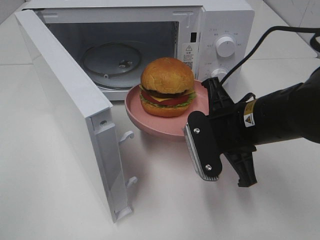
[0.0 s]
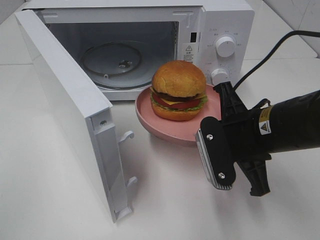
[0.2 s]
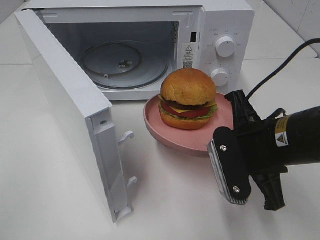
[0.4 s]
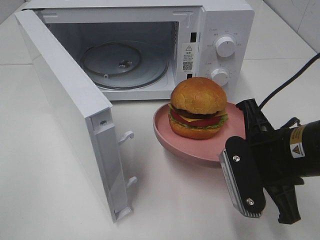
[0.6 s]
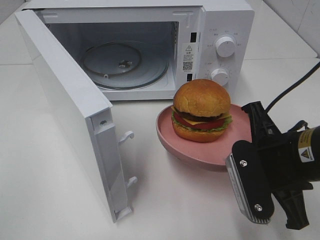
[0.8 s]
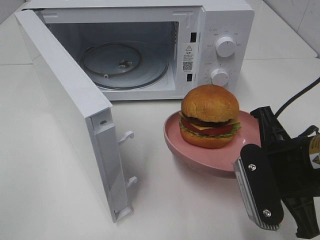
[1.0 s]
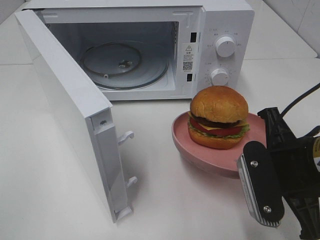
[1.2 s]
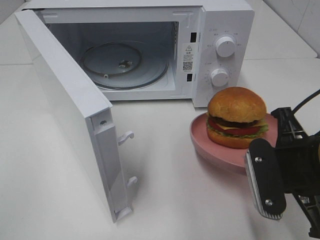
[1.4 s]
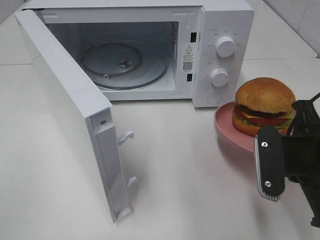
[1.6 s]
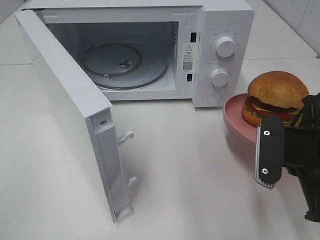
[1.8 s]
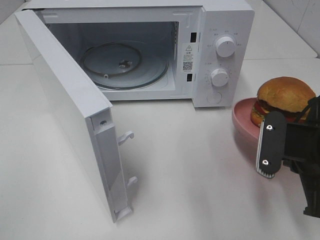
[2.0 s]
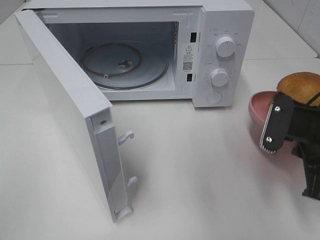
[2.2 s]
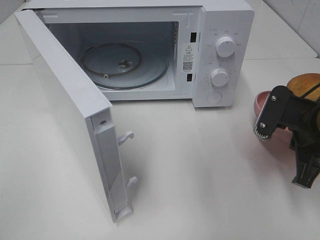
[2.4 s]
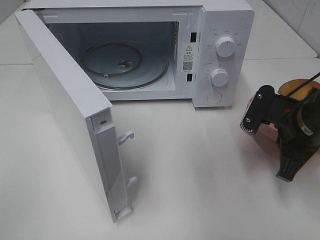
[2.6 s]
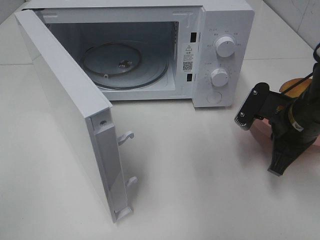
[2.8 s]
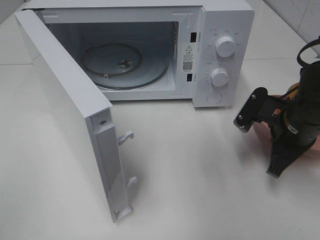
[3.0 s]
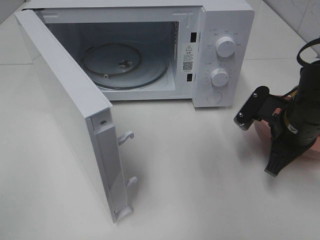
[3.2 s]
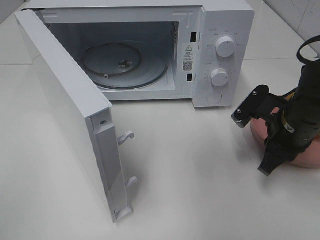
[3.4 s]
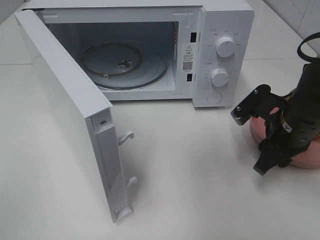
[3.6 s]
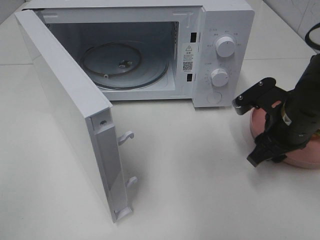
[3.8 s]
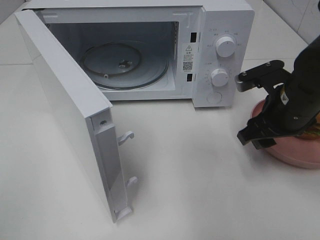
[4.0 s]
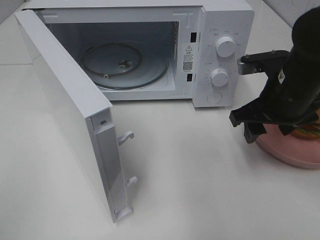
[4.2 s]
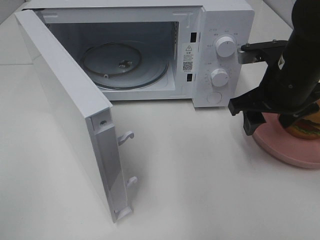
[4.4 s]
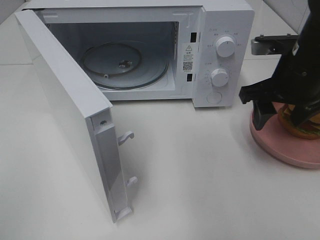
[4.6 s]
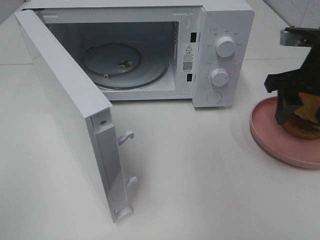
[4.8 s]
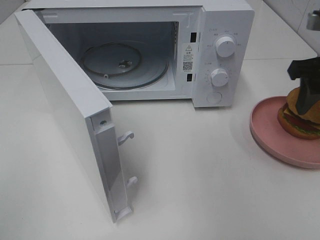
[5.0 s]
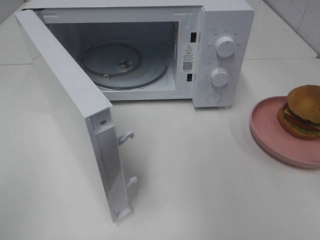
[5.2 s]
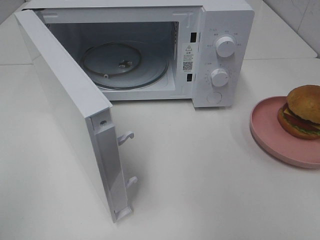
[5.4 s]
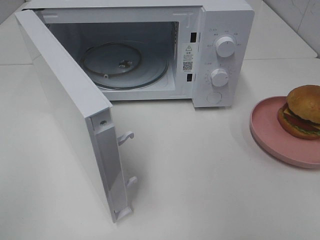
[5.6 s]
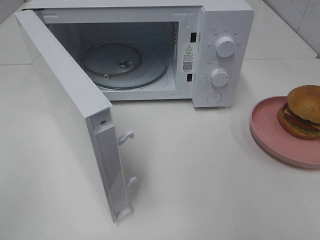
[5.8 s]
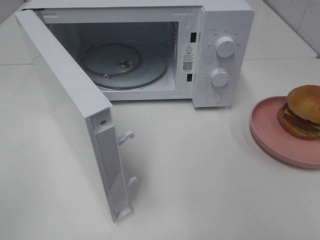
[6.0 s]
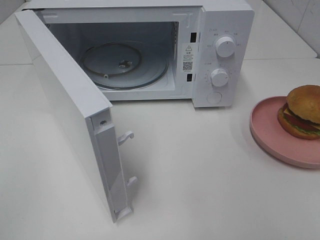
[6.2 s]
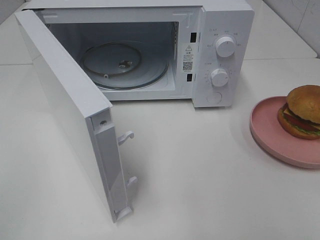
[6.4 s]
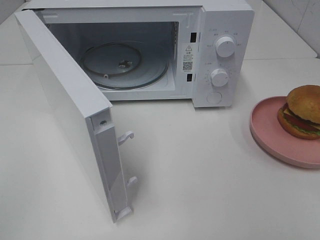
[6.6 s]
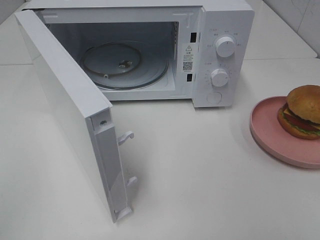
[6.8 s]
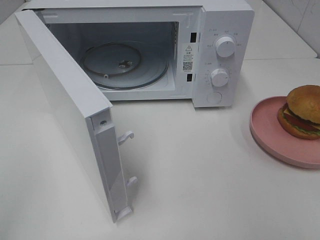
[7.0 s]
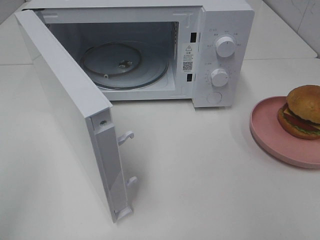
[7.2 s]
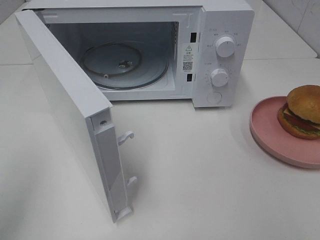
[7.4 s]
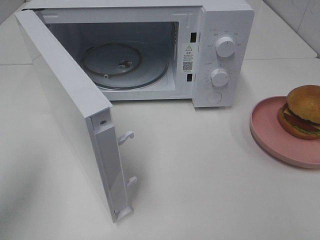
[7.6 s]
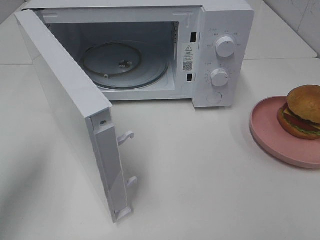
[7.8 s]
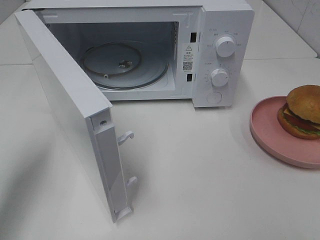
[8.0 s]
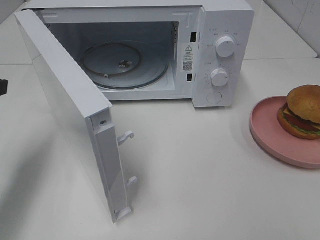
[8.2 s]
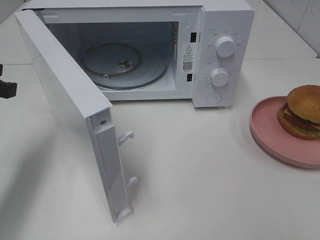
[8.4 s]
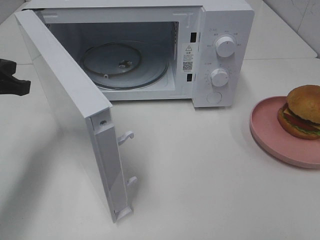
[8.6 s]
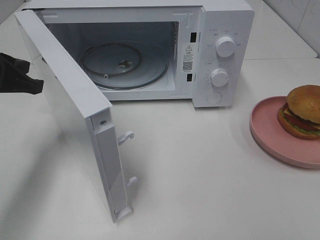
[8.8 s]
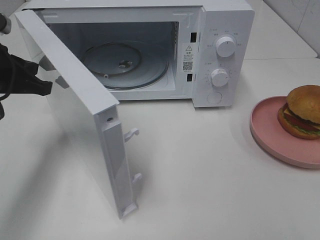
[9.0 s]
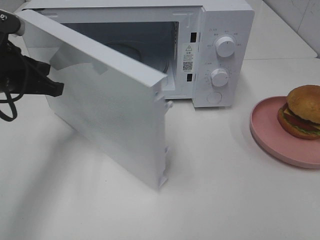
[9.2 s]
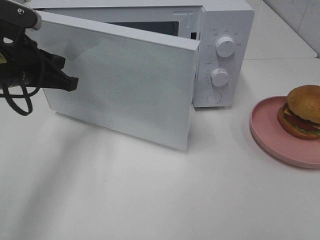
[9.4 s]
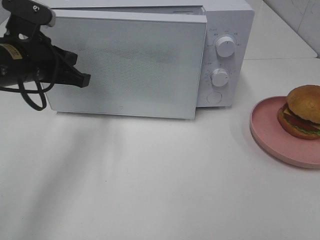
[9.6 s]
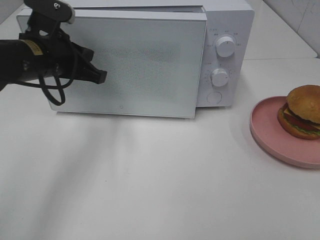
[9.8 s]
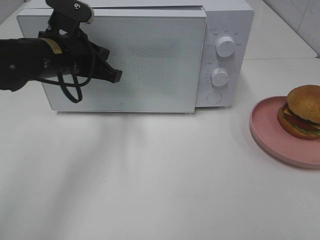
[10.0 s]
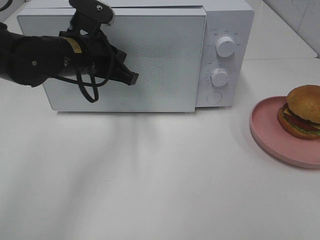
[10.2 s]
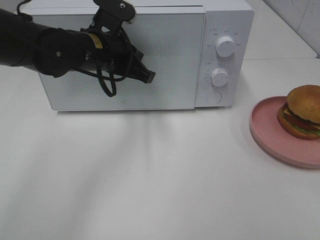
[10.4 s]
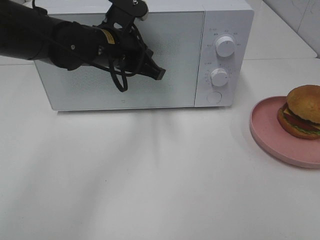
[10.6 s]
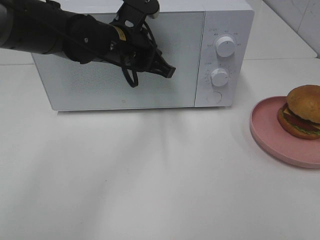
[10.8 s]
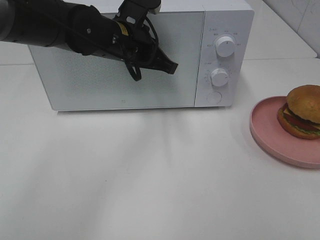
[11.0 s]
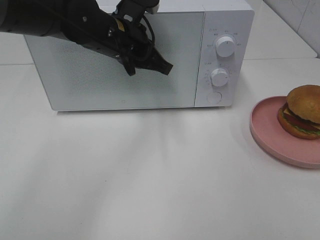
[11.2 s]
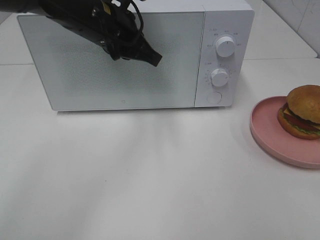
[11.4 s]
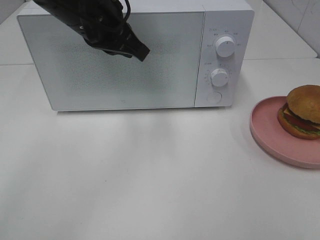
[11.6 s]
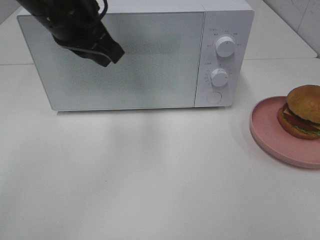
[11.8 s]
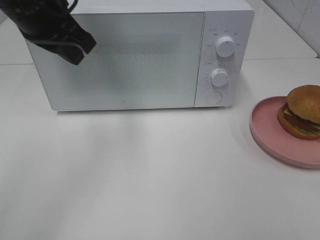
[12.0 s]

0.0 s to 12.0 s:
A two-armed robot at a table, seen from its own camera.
Task of the whole recording: Heat the burger.
Step, 0.0 to 3.4 s: Right hand: place the plate on the table.
Step, 3.6 to 11.2 s: Left hand: close the microwave door.
0.0 to 1.6 s: The right gripper heads to the right and backward, covering approximately 10 cm.
1.6 to 3.0 s: The right gripper travels forward and downward by approximately 10 cm.
3.0 to 4.4 s: The right gripper moves upward, approximately 10 cm, and opens its fingers.
4.4 to 6.0 s: The right gripper goes approximately 25 cm backward, to the right and upward.
6.0 to 7.6 s: The left gripper travels forward by roughly 15 cm.
7.6 to 9.0 s: The left gripper heads forward and downward, covering about 20 cm.
9.0 to 10.4 s: The left gripper travels to the right and forward by roughly 15 cm, and opens up.
10.4 to 12.0 s: The left gripper shifts approximately 10 cm upward and to the left.

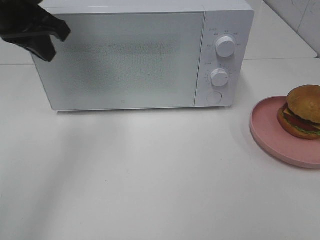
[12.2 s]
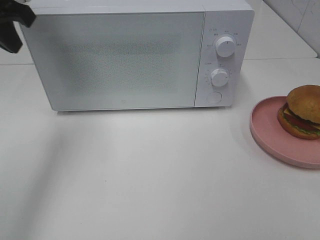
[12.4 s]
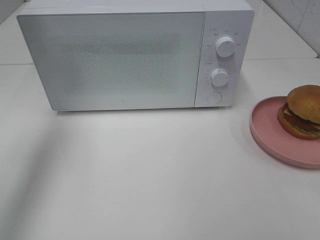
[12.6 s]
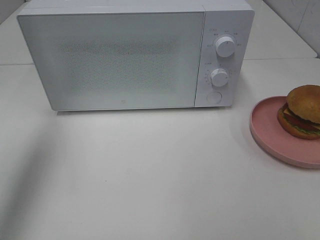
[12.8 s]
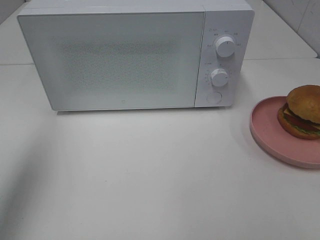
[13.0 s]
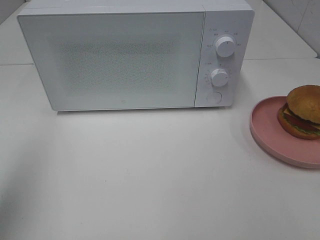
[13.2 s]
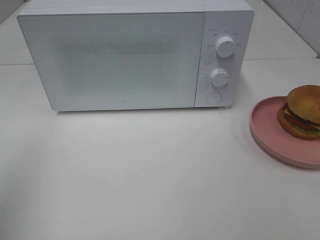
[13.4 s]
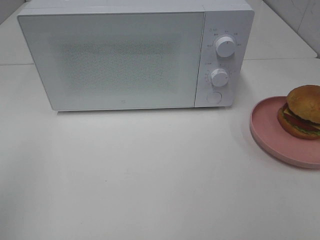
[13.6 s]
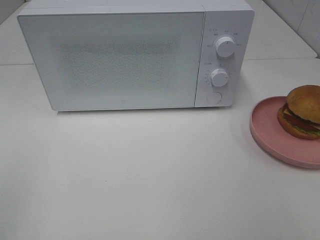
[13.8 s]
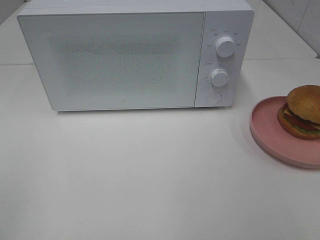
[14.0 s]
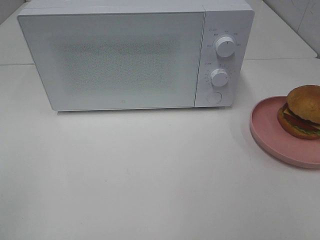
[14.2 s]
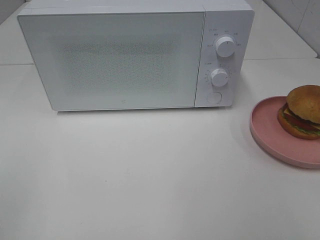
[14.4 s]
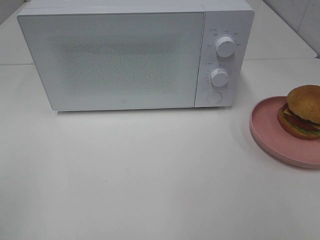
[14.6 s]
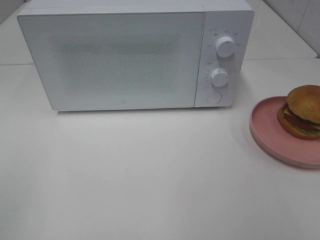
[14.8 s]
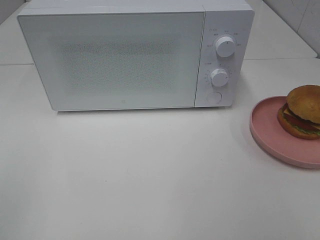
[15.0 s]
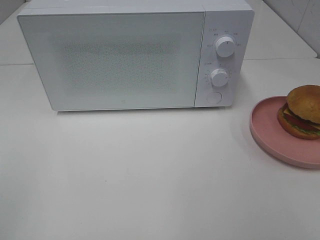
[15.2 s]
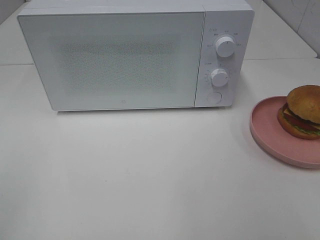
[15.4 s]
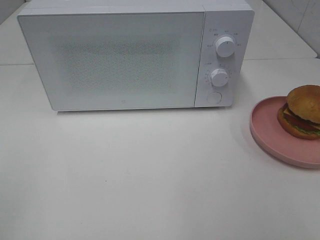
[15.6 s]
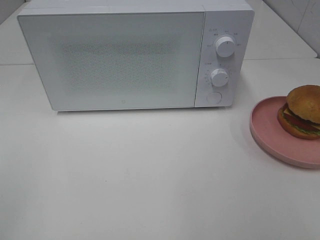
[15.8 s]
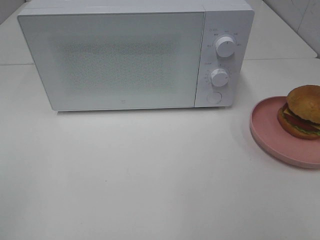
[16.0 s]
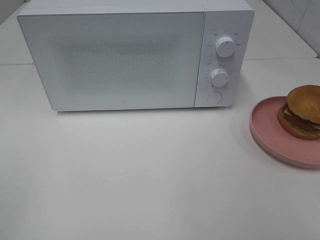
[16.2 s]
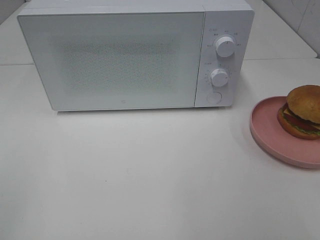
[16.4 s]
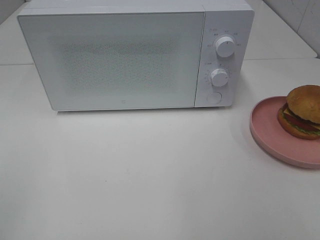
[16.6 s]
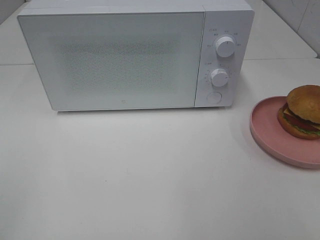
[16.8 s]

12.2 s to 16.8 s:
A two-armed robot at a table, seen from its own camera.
Task of the whole recording: Heat the burger.
12.2 to 13.8 s: The left gripper shifts roughly 30 cm backward.
15.2 to 16.8 s: The two grippers keep their place.

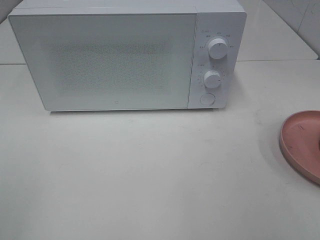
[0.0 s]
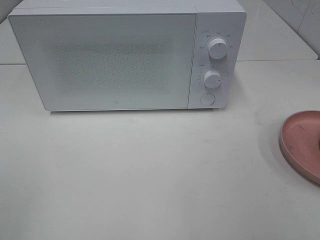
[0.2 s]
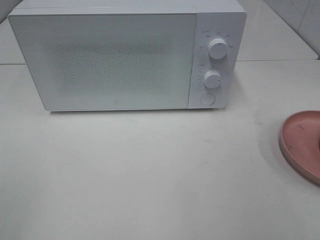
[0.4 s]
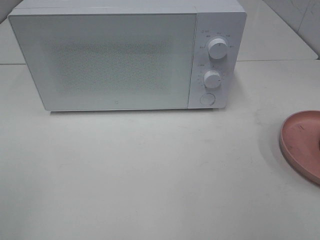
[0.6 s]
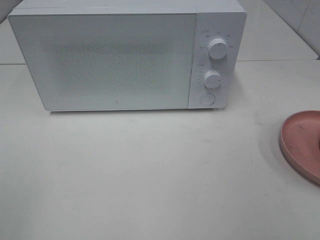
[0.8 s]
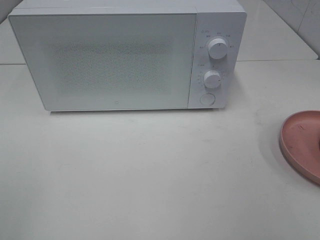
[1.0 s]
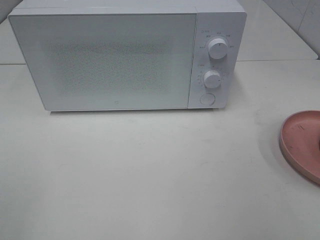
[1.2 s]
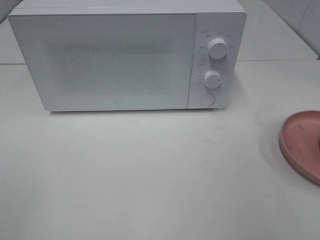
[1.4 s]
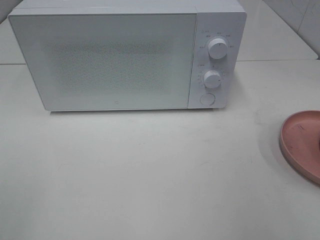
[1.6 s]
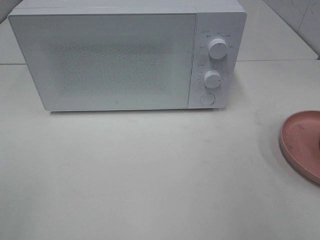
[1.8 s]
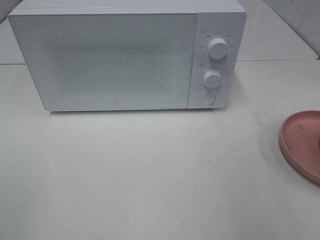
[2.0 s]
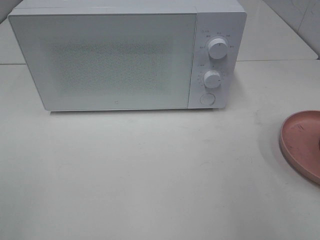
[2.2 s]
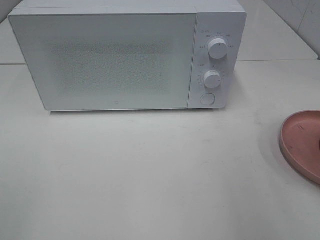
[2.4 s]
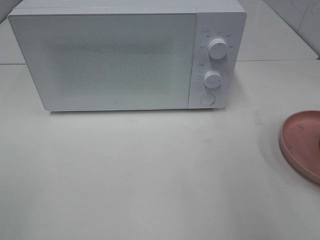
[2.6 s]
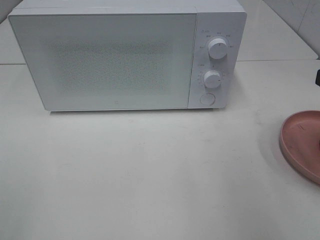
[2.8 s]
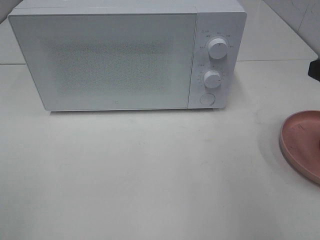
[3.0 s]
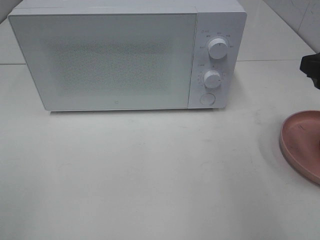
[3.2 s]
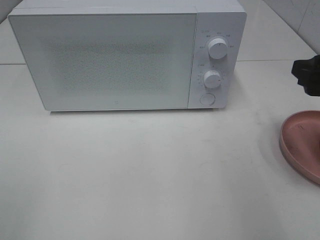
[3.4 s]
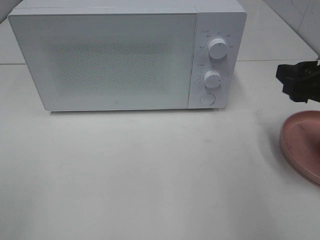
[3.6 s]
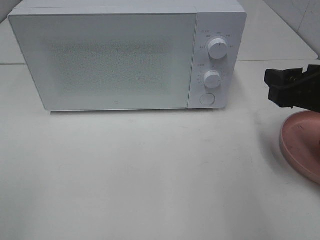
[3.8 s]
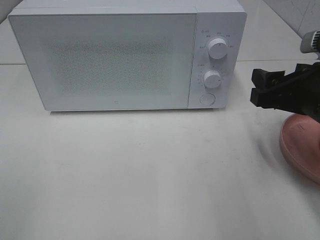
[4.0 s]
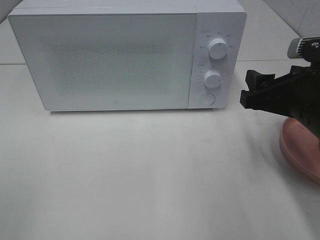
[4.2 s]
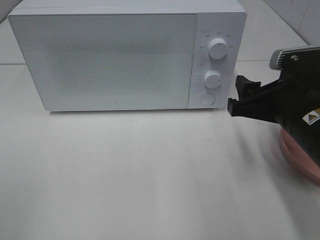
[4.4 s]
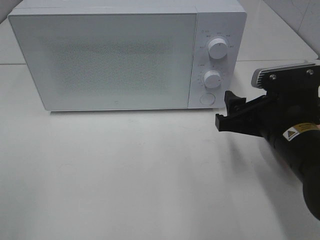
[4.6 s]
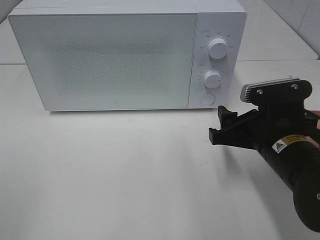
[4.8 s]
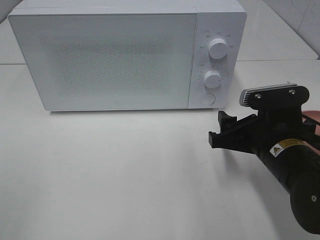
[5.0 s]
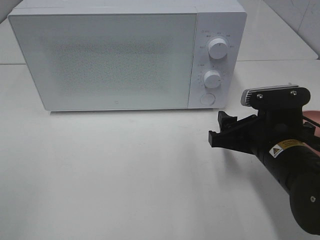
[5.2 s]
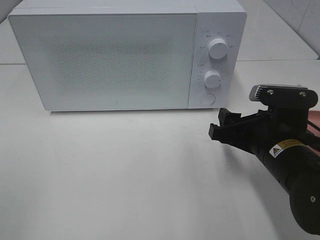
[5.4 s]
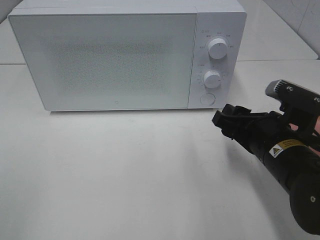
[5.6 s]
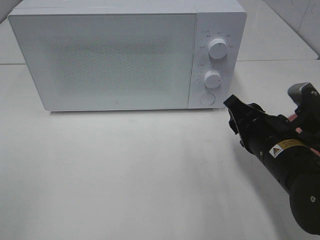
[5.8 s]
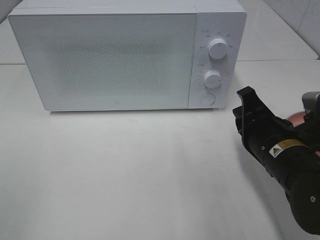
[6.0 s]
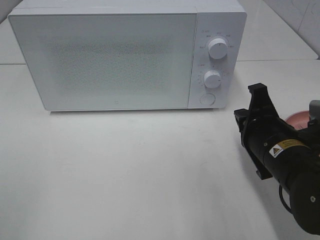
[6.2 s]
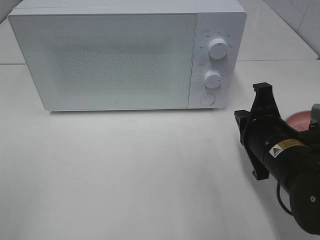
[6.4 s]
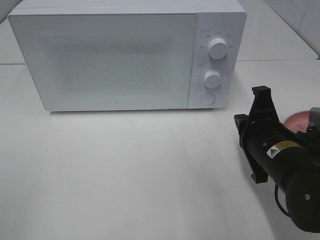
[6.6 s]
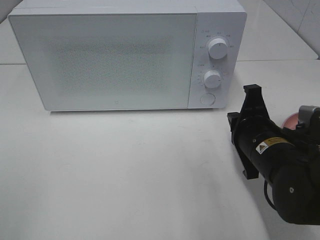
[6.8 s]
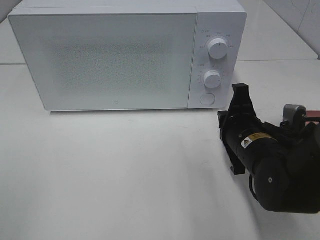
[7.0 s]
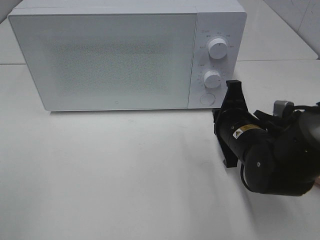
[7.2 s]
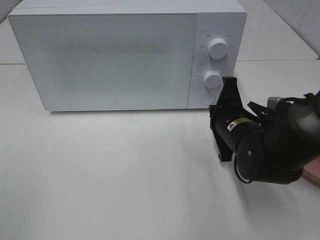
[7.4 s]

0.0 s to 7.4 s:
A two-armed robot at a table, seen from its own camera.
Task of the whole recording: Heat the burger.
3.0 to 4.4 s: The right gripper heads to the left and downward, covering about 10 cm.
4.4 to 6.0 s: The right gripper moves downward, approximately 5 cm, and closes its fingers.
6.0 to 7.4 s: The right gripper heads forward, covering about 5 cm.
